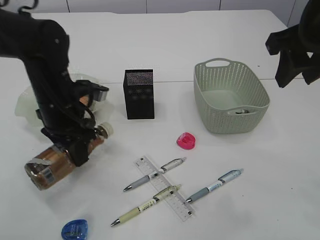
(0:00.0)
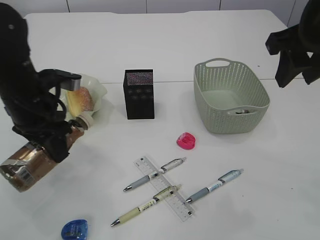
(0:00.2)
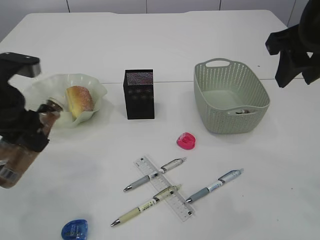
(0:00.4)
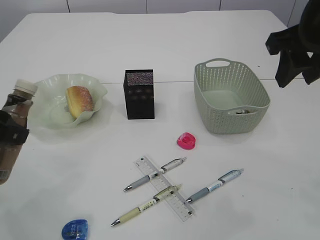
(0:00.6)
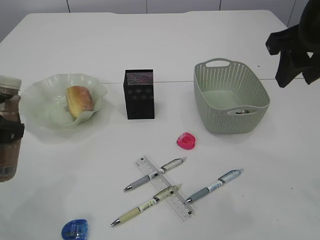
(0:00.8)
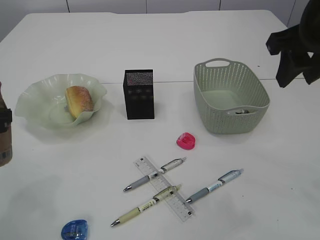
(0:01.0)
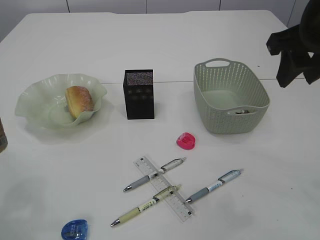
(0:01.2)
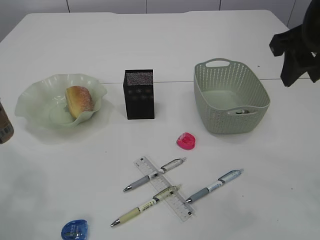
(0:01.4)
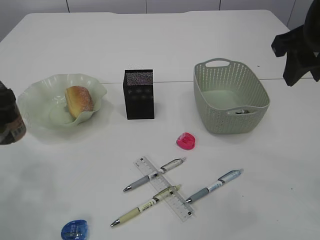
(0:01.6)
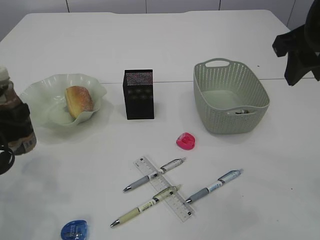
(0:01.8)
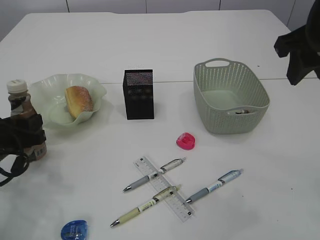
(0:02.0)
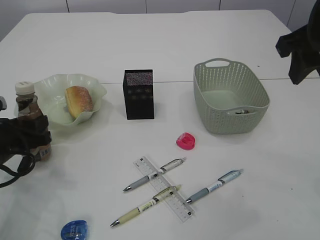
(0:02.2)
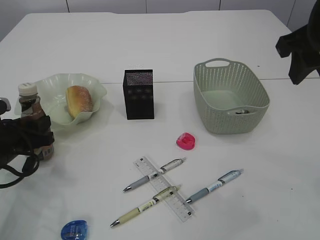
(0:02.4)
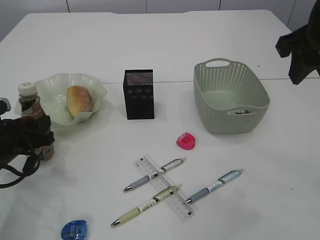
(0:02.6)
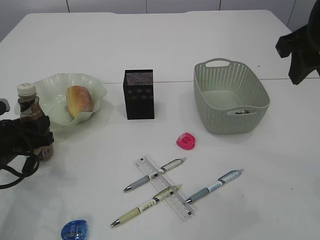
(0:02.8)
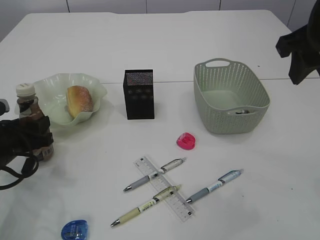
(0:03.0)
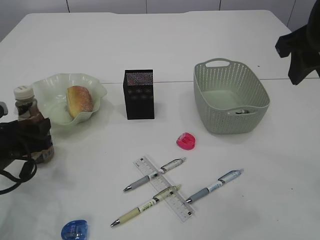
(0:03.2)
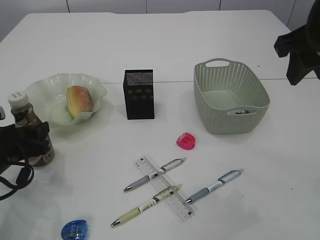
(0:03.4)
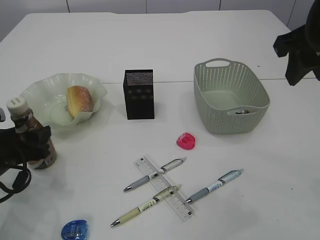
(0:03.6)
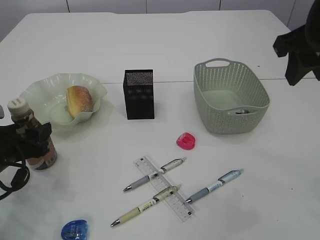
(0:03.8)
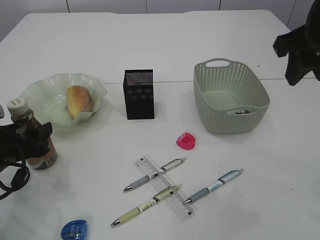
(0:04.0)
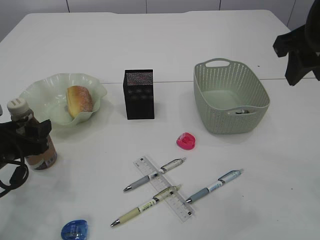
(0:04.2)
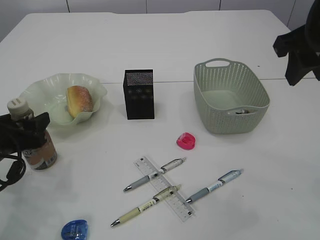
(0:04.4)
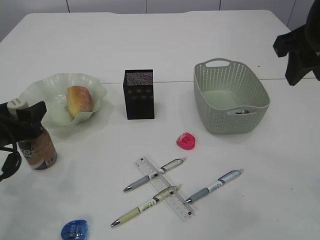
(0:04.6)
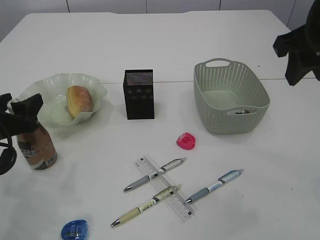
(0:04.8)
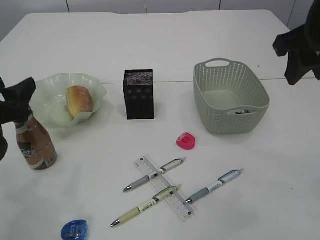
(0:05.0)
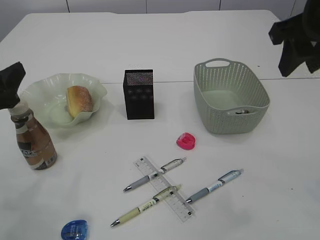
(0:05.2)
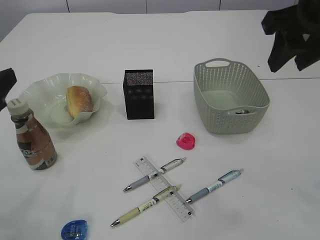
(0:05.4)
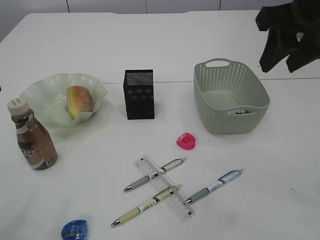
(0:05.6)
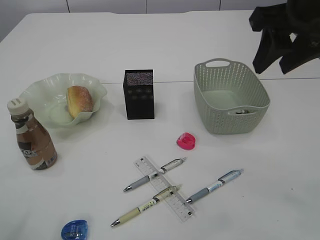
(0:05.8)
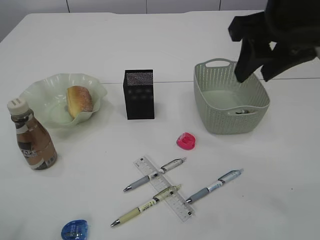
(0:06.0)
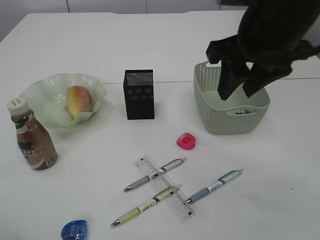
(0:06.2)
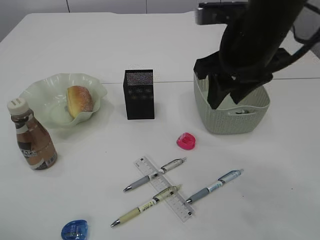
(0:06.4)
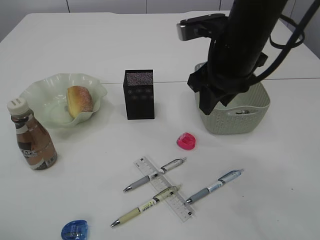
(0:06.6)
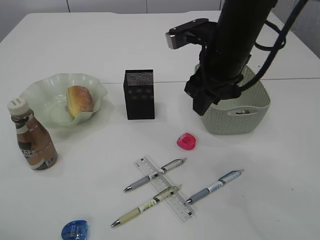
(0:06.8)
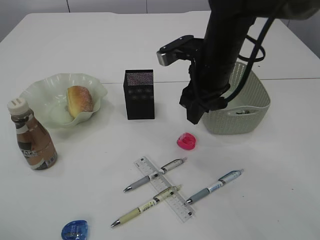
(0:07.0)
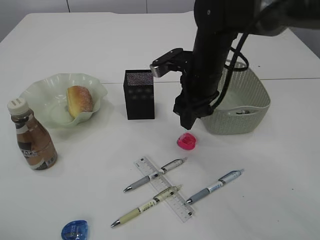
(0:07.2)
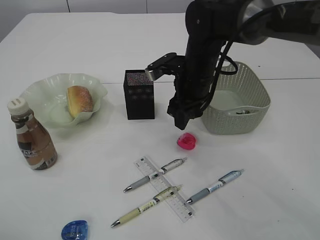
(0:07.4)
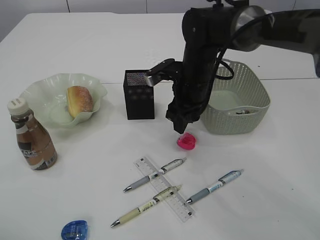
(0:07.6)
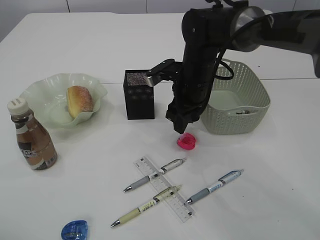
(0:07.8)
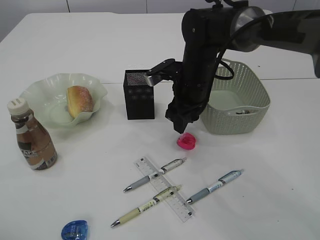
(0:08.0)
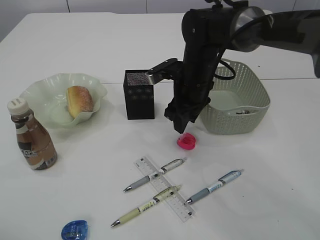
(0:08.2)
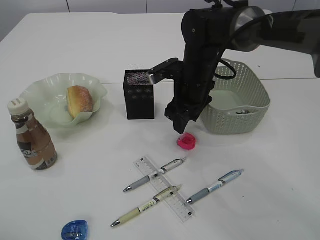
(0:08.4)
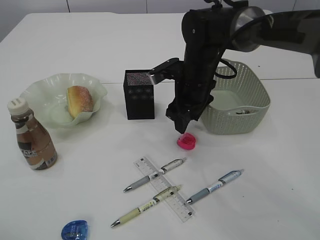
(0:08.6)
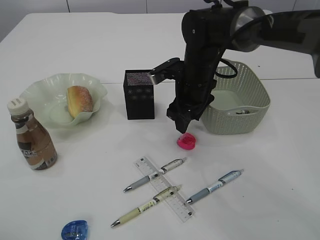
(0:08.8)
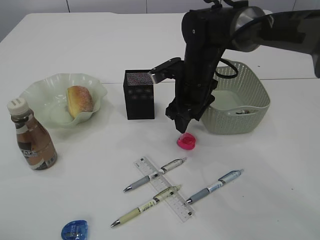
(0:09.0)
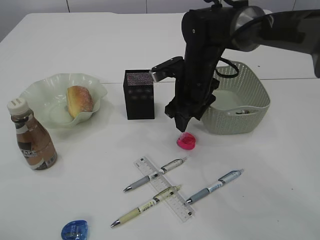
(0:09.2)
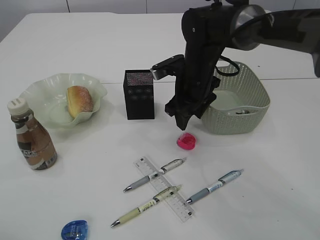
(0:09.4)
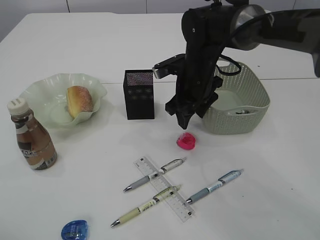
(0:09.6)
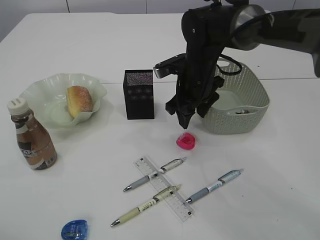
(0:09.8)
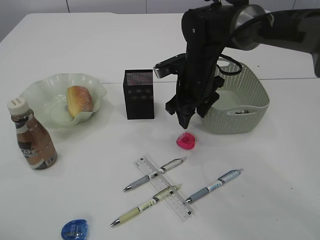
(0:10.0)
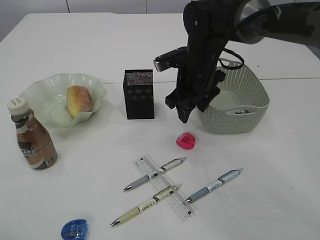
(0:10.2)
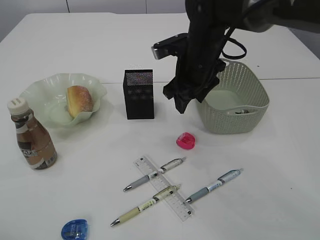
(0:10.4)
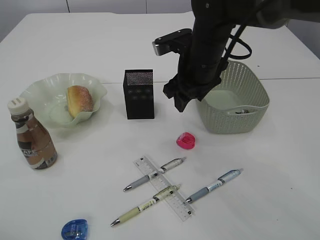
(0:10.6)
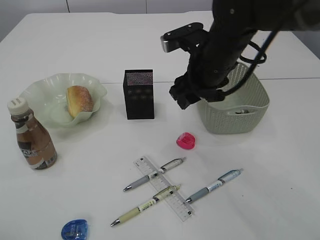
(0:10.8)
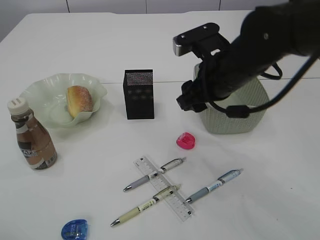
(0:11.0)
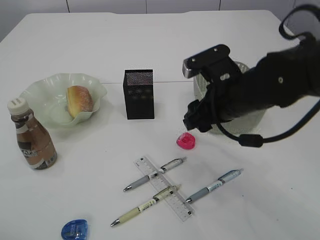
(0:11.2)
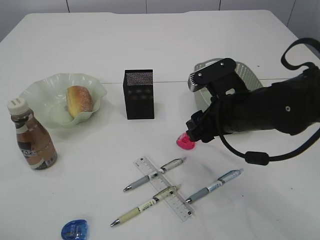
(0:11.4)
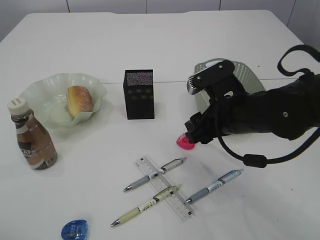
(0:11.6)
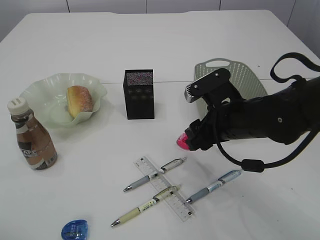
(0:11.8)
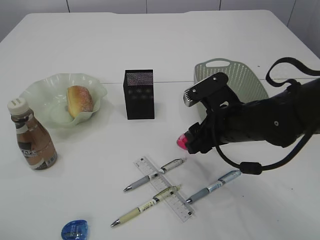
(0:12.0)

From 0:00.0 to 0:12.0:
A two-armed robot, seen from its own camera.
Step, from 0:00.6 to 0:05.6: Place the bottle.
From 0:00.0 to 0:01.6: The left gripper goes some 15 cm to the left and backward.
From 0:01.6 to 0:03.0: The left gripper travels downward by roughly 10 cm.
From 0:03.0 to 0:04.4: There are only small adjustments of the grippers.
From 0:04.4 to 0:06.0: The right gripper changes place by roughly 5 cm, while the left gripper moves upward and backward, roughly 20 cm.
From 0:06.0 to 0:07.6: The right gripper moves downward, forward and to the left, about 25 cm.
From 0:07.6 to 0:10.4: There are only small adjustments of the grippers.
From 0:10.4 to 0:12.0: The right gripper heads backward and downward, covering roughly 15 cm.

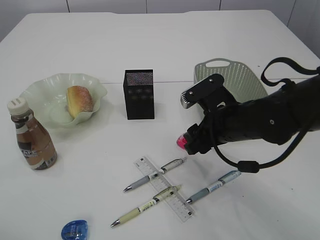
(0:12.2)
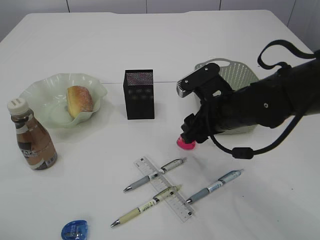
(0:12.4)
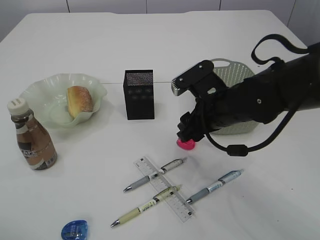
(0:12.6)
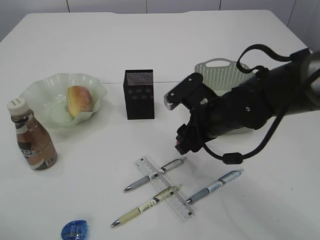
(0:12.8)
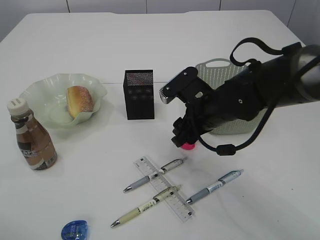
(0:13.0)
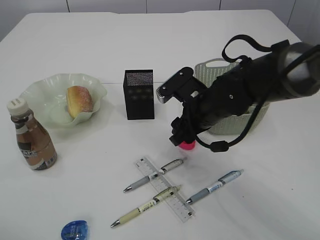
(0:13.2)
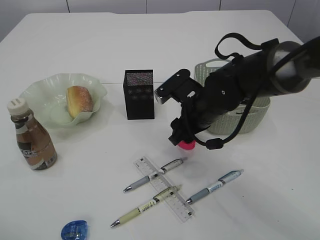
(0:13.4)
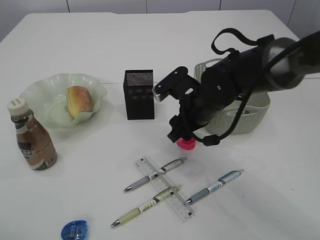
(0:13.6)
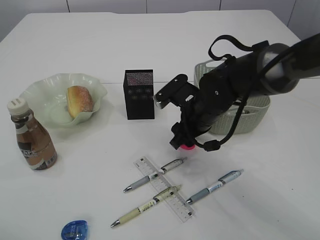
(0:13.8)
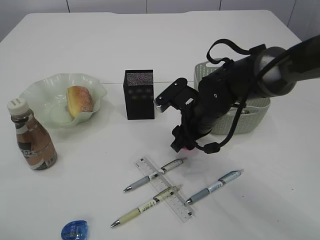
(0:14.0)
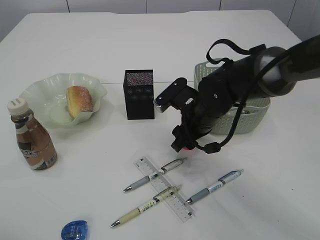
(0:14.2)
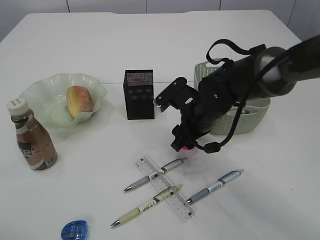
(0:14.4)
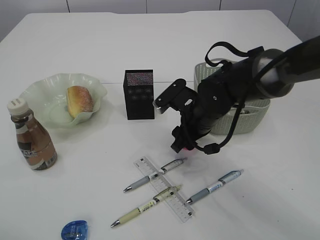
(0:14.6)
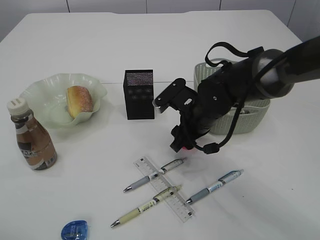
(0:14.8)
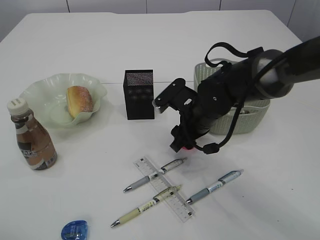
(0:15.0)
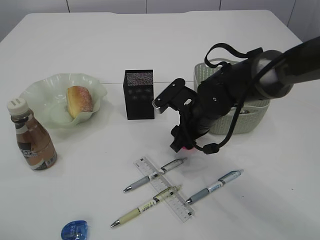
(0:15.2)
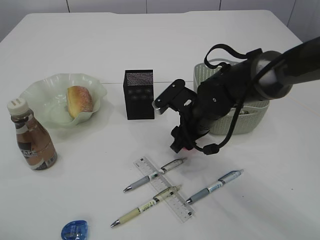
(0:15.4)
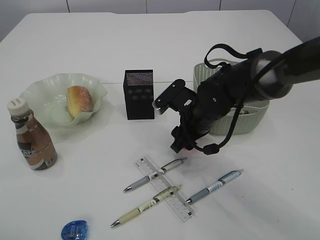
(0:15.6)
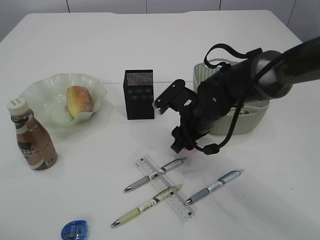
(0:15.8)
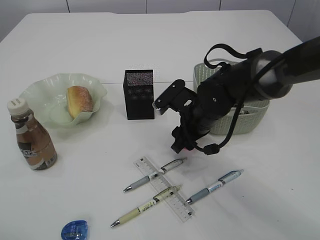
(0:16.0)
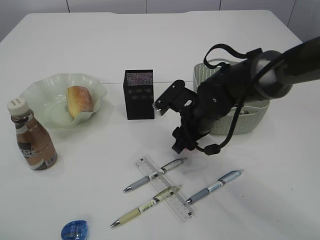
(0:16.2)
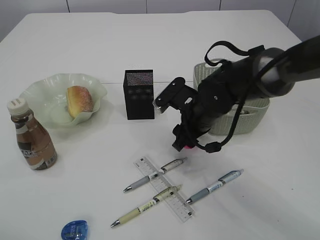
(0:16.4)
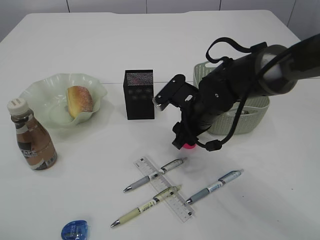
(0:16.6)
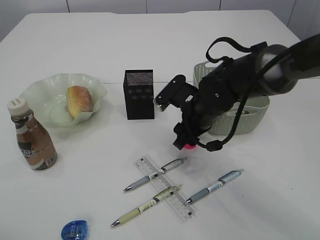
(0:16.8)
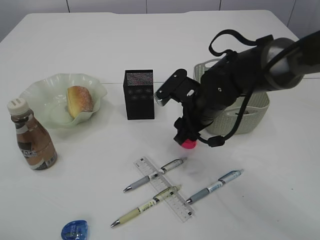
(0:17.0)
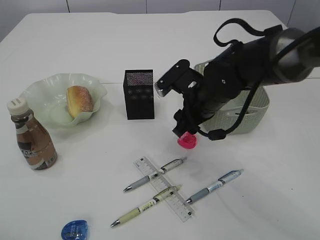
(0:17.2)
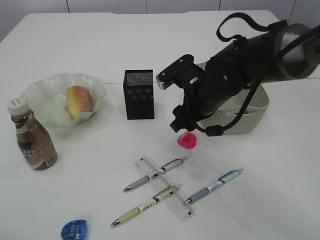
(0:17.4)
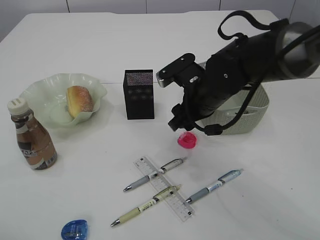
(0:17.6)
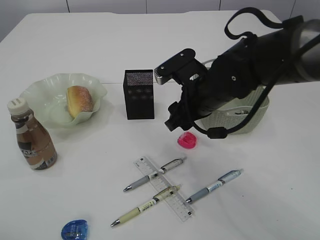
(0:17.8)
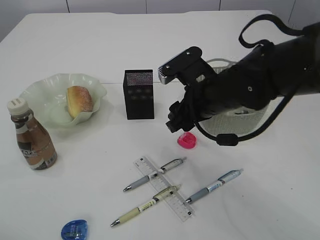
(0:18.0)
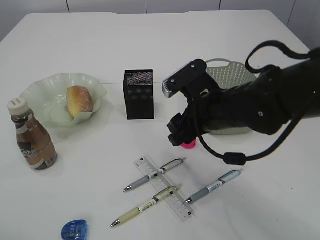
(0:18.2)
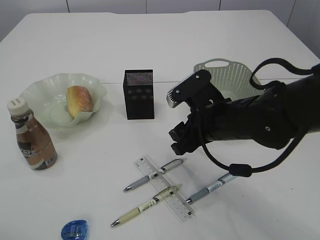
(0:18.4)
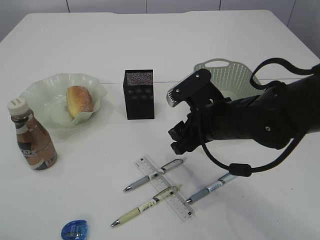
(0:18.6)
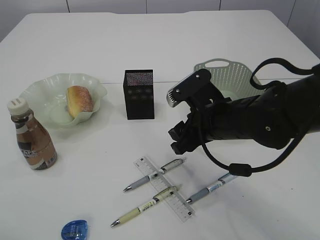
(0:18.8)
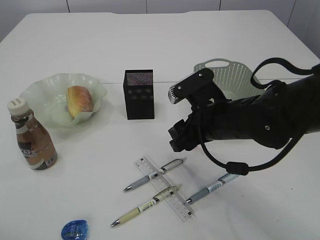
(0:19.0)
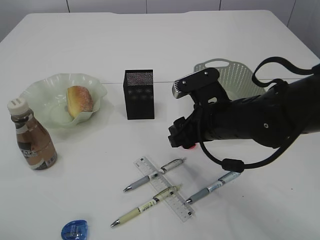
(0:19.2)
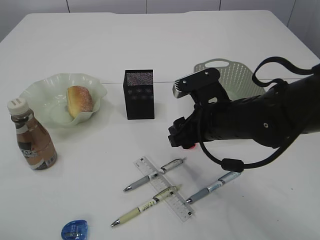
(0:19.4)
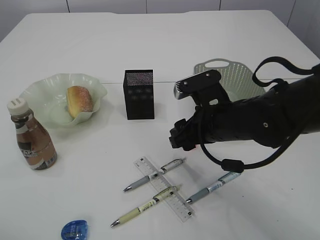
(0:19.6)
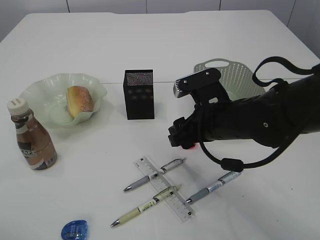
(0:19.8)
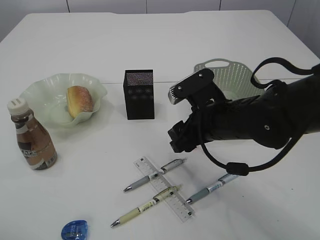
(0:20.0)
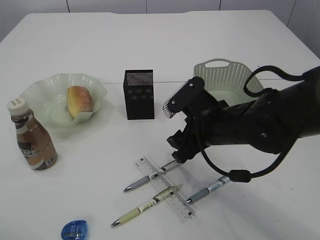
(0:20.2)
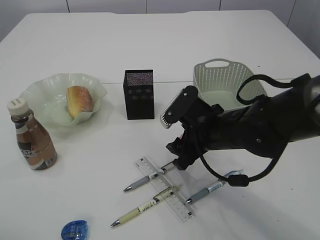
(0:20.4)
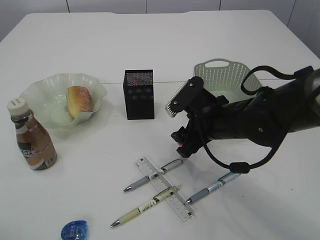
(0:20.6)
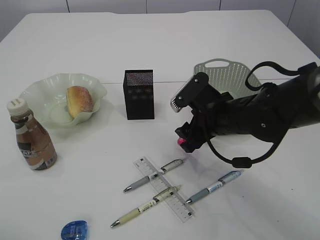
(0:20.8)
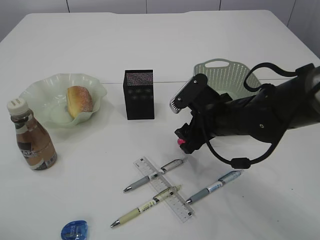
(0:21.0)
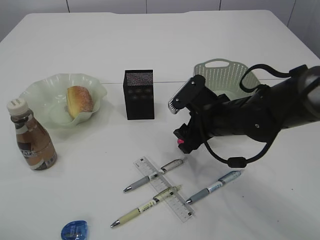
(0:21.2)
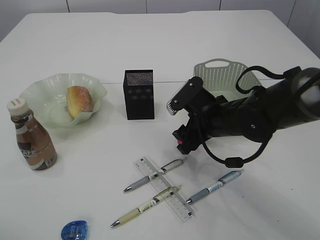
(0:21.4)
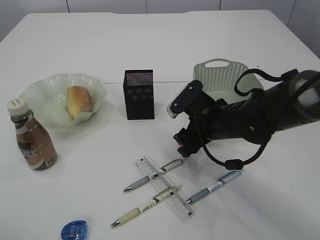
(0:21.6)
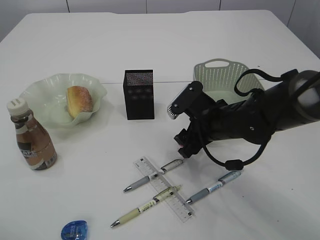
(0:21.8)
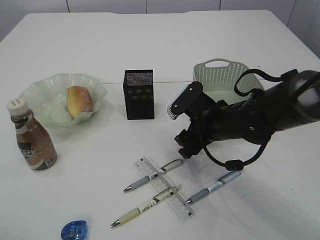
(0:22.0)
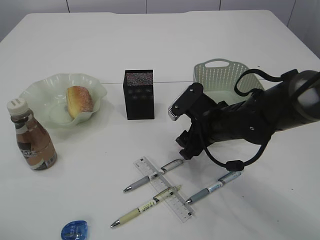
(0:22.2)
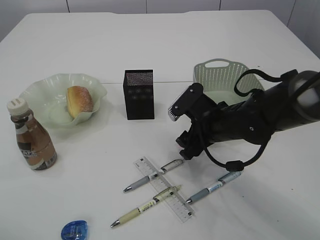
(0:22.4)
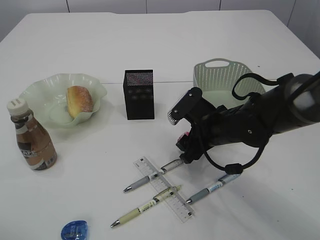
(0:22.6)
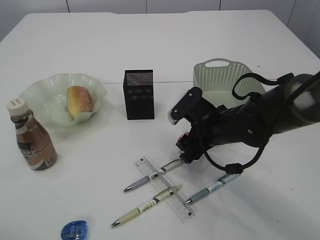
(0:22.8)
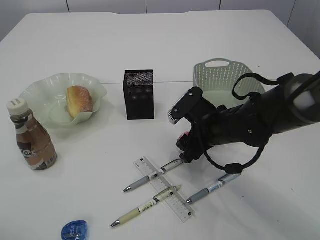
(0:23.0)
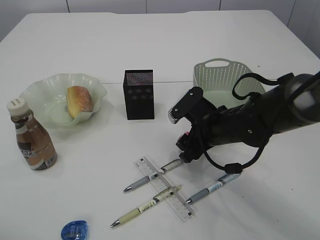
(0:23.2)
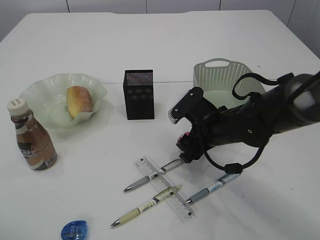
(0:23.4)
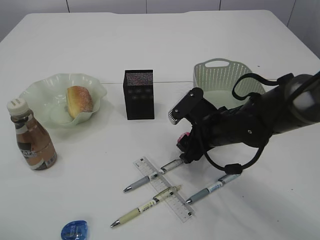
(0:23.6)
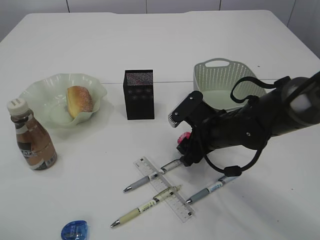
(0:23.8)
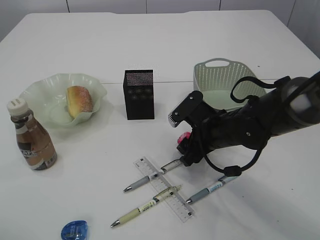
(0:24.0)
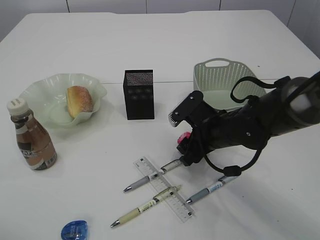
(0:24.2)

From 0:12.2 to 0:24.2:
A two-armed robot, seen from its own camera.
From 0:12.2 to 0:13.8: The right gripper shifts approximately 5 cm forward.
From 0:13.8 to 0:15.2: Neither gripper changes place.
From 0:15.2 to 0:16.6: Both grippers stay put.
From 0:16.6 to 0:18.2: The right gripper is displaced backward by approximately 5 cm.
From 0:18.2 to 0:19.8: The grippers stay close to where they were, moving slightly.
From 0:21.2 to 0:22.6: The grippers move only a little.
From 0:22.6 to 0:24.2: Both grippers stay put.
